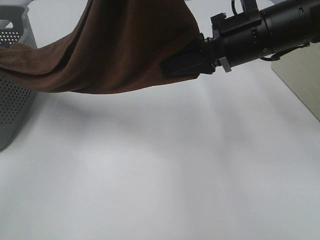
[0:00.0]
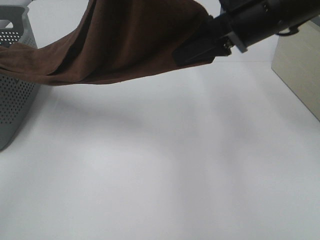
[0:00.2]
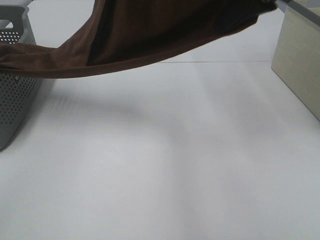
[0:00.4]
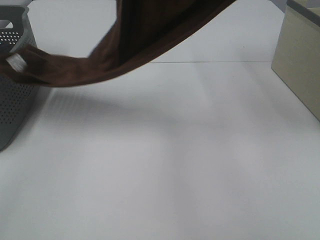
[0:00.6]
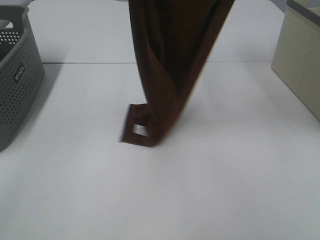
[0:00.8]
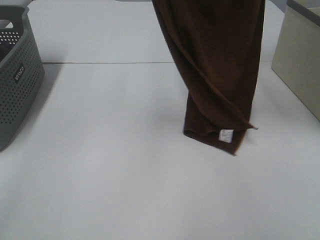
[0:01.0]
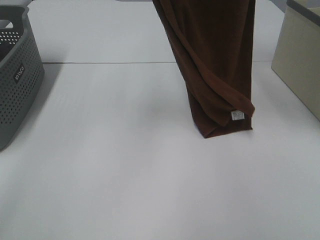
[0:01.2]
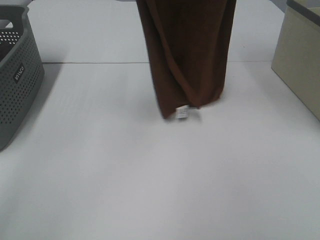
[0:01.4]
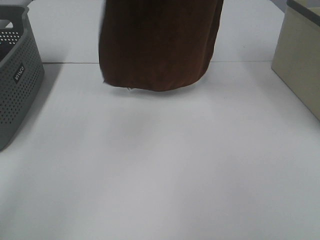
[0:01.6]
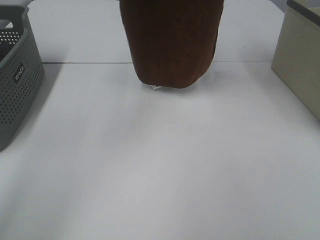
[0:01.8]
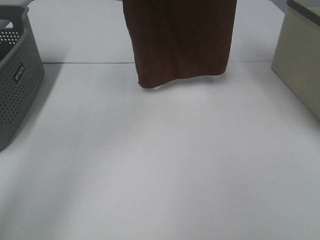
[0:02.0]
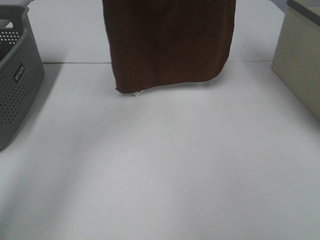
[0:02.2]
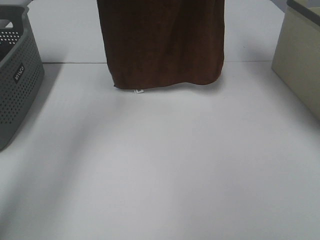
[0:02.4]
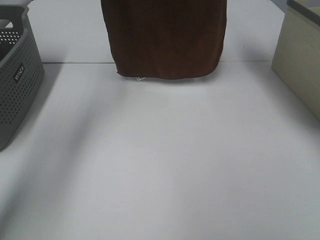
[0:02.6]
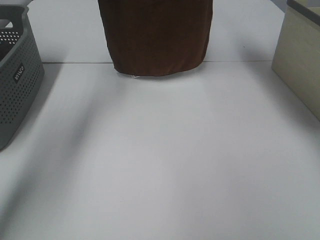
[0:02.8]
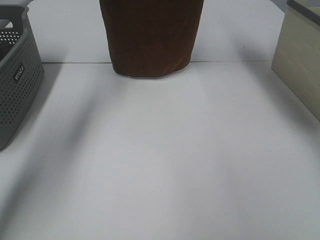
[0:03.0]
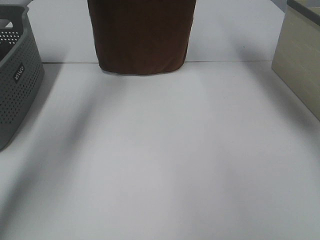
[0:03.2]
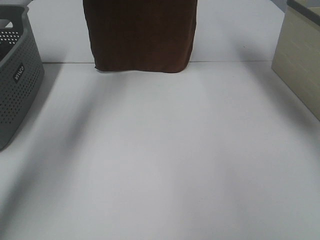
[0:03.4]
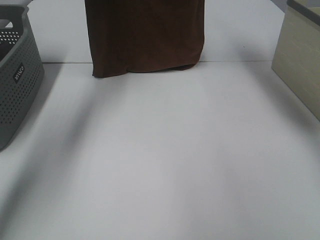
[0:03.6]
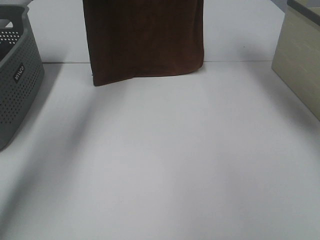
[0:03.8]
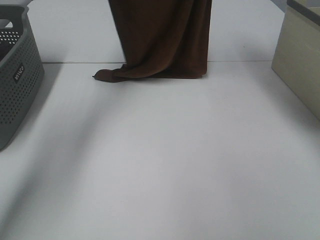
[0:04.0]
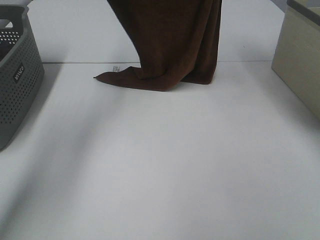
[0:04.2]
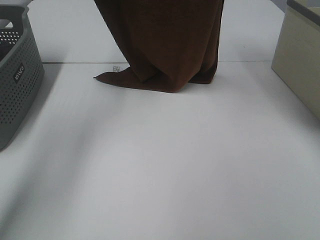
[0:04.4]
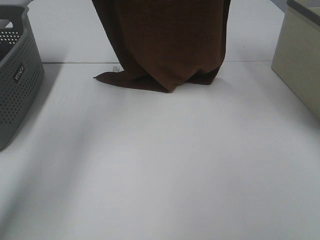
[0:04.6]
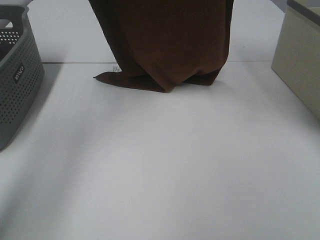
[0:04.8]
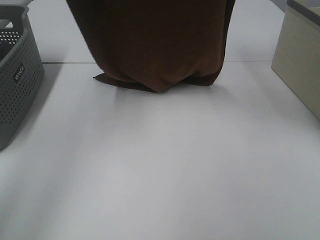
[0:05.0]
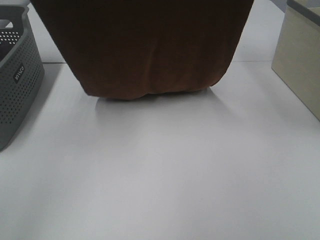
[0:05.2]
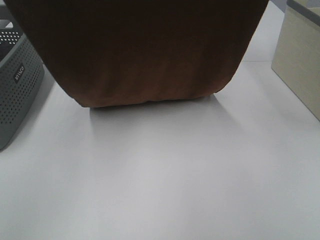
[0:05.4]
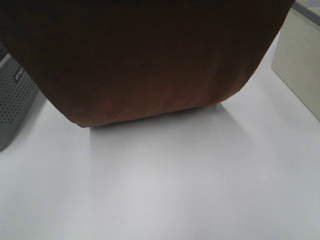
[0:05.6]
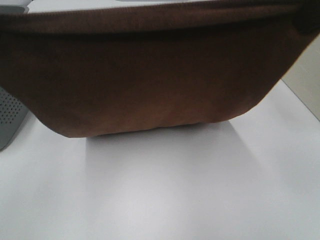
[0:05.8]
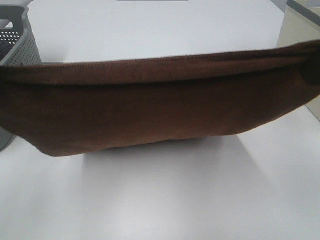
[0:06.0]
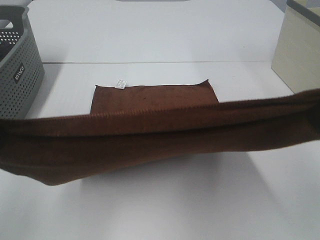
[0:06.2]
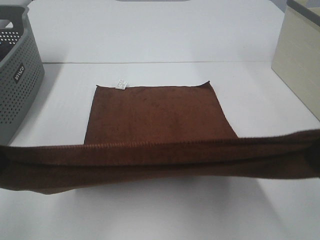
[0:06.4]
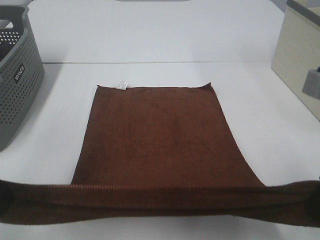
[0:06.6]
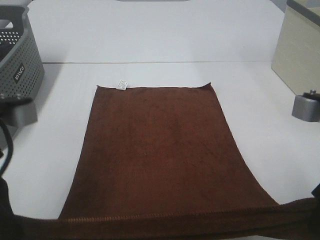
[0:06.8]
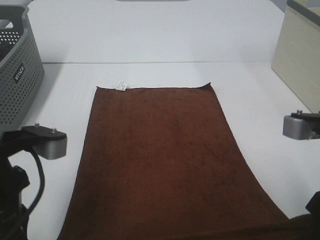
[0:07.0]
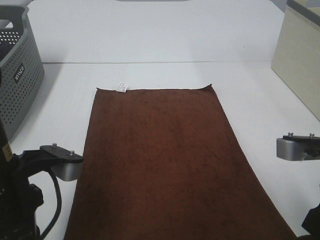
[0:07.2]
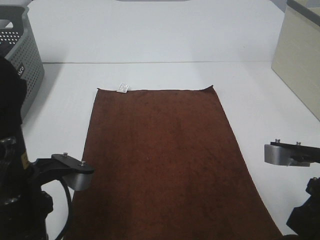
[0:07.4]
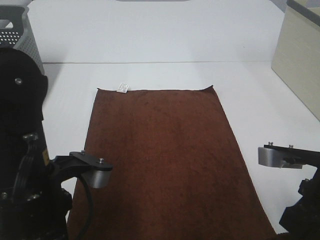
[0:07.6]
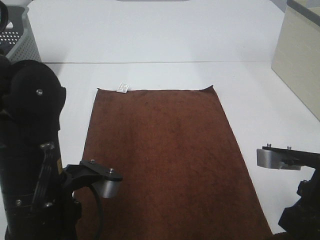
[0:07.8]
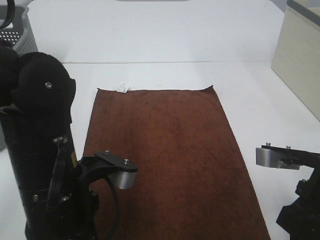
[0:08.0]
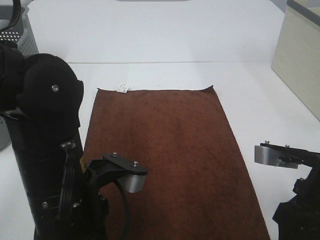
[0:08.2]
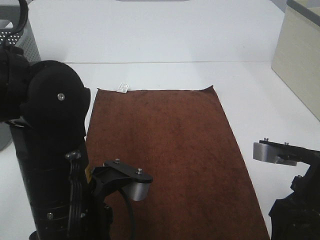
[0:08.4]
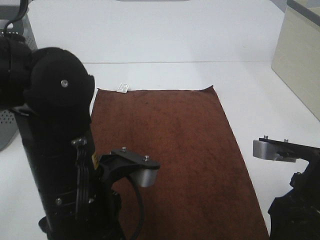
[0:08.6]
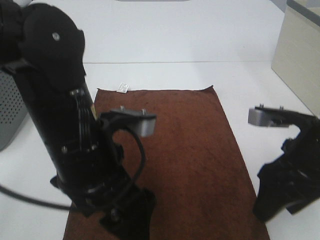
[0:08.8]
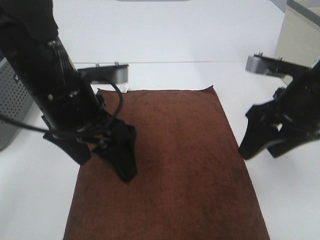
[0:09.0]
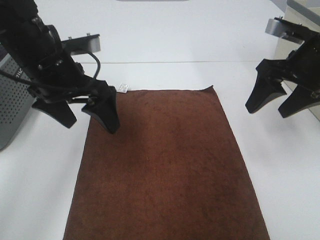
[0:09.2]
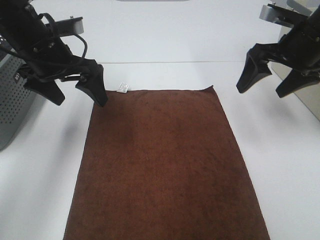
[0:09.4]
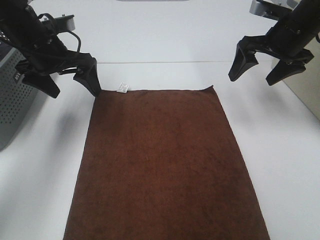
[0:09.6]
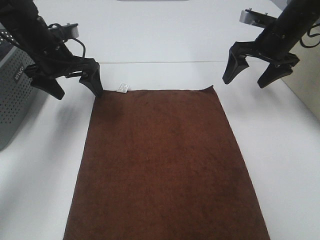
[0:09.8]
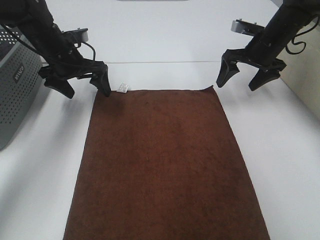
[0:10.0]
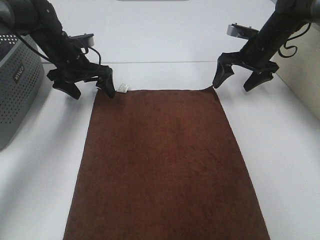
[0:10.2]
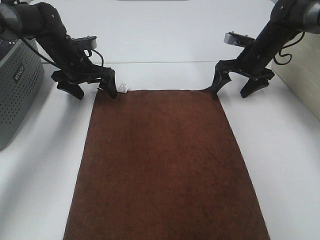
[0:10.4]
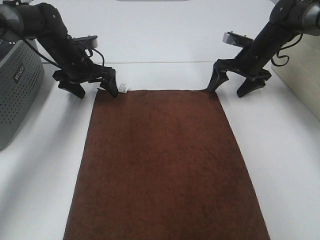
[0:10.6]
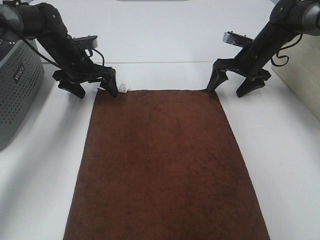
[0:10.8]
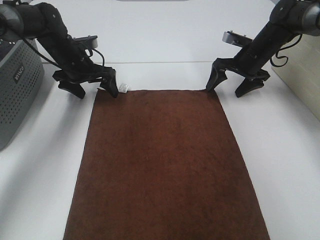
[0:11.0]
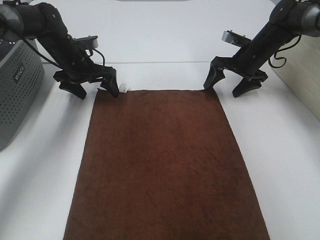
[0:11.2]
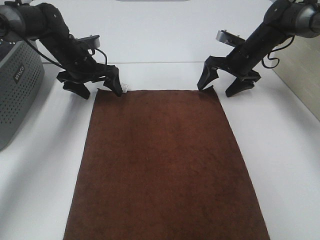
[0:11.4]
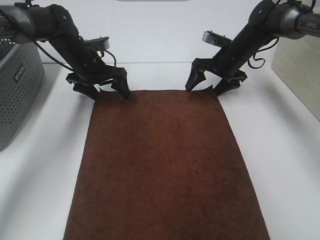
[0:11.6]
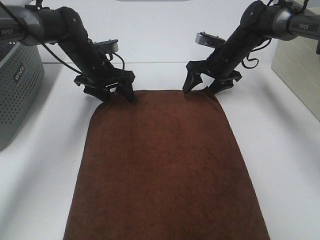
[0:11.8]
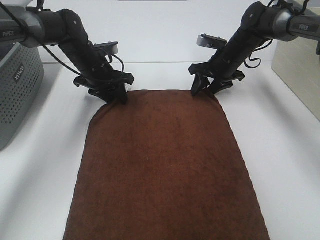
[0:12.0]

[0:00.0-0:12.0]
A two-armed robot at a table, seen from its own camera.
Task of the whole recording: Remove the towel and place it.
Step, 0:00.0 to 0:04.2: Left hand: spread the brown towel flat on the table.
Step, 0:00.0 to 0:04.2: Right hand: spread the brown towel flat on the table.
Step, 0:04.4 to 0:10.6: Left hand:adjust the brown towel.
Step, 0:04.4 to 0:10.6: Right hand:adjust the brown towel.
0:00.0 to 0:01.6: The left gripper shifts roughly 15 cm forward and to the left, while the right gripper travels upward by approximately 30 cm.
0:01.6 to 0:03.0: The right gripper heads forward and downward, covering about 15 cm. Meanwhile the left gripper moves forward, downward and to the left, about 15 cm.
0:03.0 to 0:04.4: The right gripper is displaced backward by roughly 5 cm, while the left gripper moves some 5 cm.
0:04.4 to 0:06.0: Both grippers move backward, about 25 cm.
0:06.0 to 0:07.6: The right gripper moves downward, about 20 cm. Meanwhile the left gripper heads downward and to the right, covering some 20 cm.
0:07.6 to 0:09.0: The two grippers go some 10 cm forward. The right gripper opens up. The left gripper opens up.
0:09.0 to 0:10.4: Both grippers travel together forward and downward, roughly 25 cm.
0:10.4 to 0:12.0: The left gripper closes up, while the right gripper heads to the left, covering about 5 cm, and closes up.

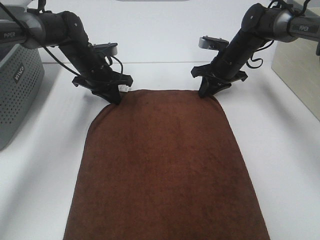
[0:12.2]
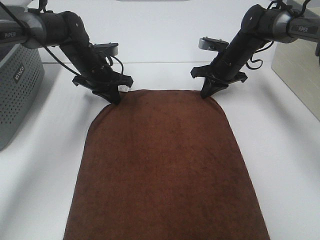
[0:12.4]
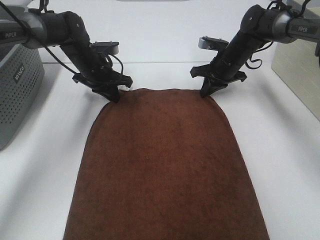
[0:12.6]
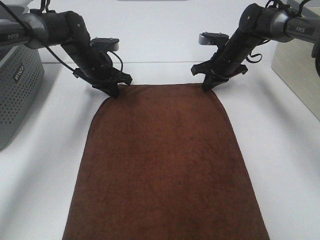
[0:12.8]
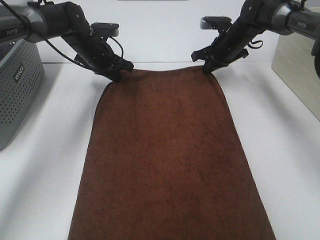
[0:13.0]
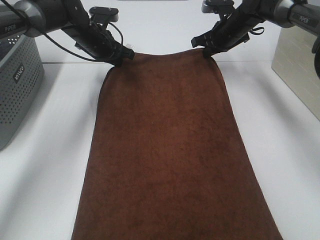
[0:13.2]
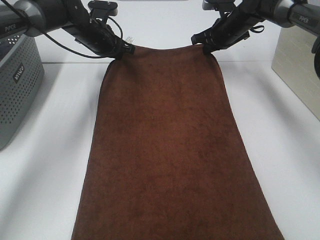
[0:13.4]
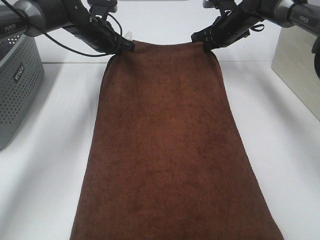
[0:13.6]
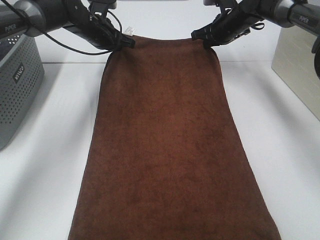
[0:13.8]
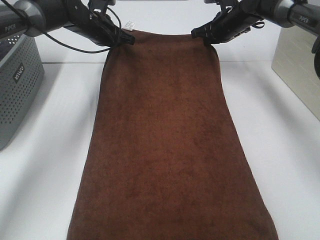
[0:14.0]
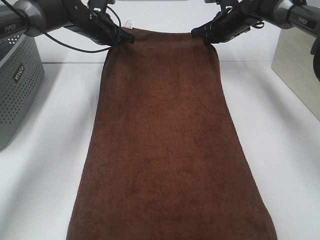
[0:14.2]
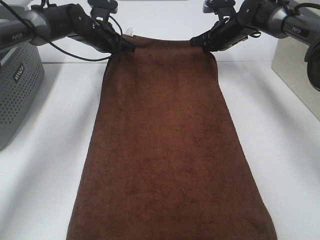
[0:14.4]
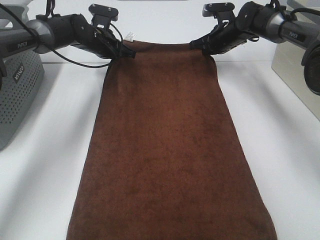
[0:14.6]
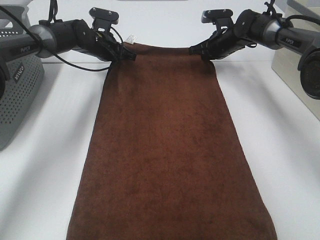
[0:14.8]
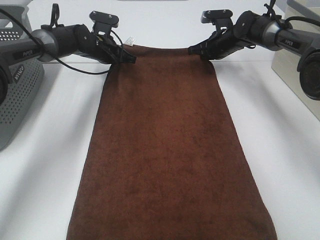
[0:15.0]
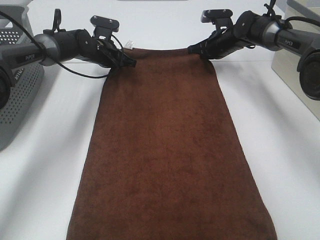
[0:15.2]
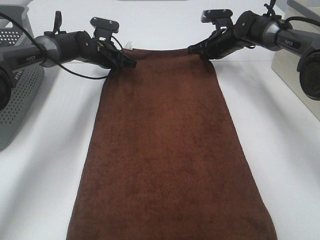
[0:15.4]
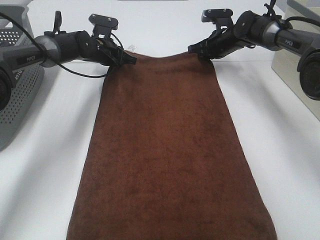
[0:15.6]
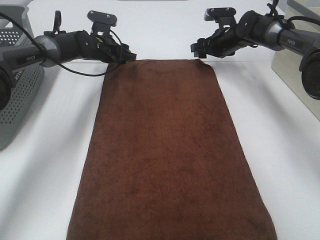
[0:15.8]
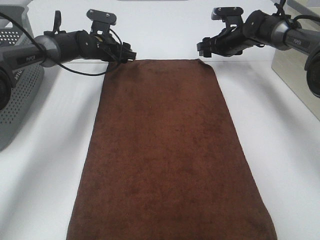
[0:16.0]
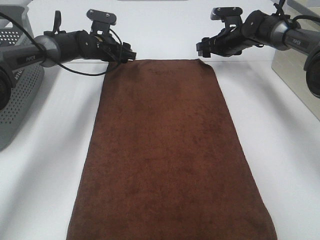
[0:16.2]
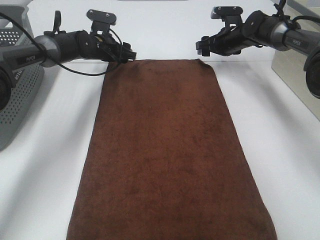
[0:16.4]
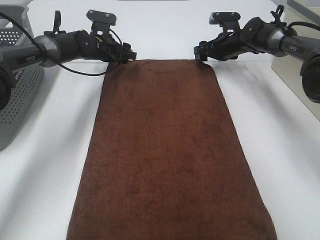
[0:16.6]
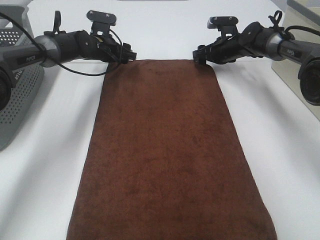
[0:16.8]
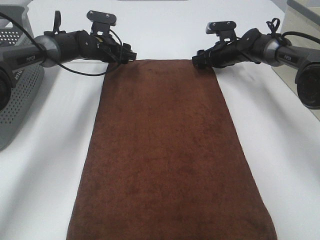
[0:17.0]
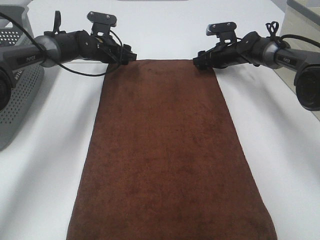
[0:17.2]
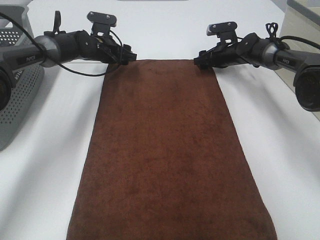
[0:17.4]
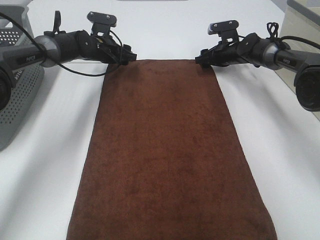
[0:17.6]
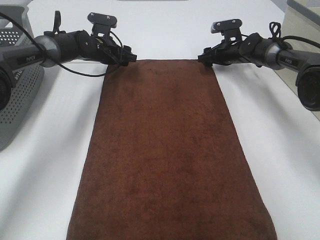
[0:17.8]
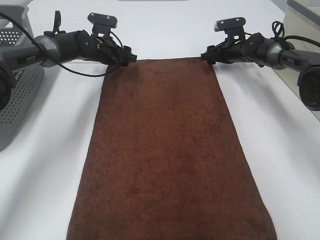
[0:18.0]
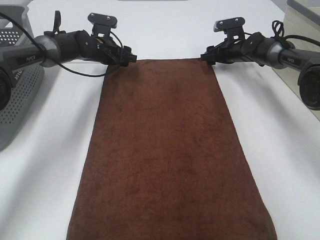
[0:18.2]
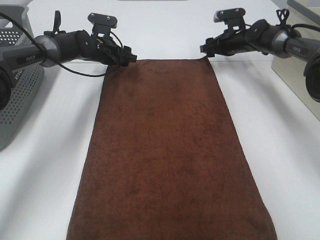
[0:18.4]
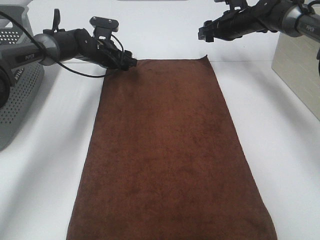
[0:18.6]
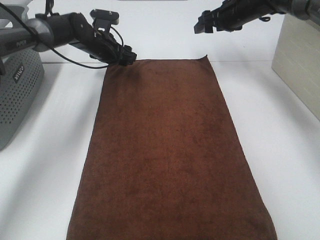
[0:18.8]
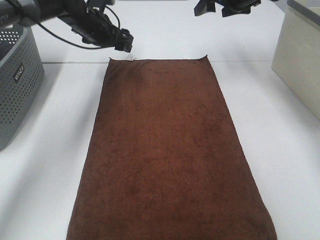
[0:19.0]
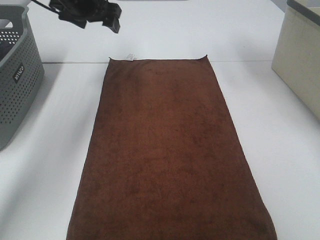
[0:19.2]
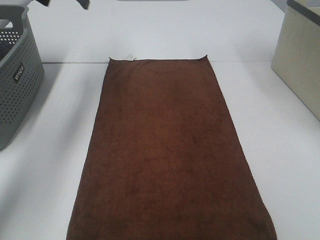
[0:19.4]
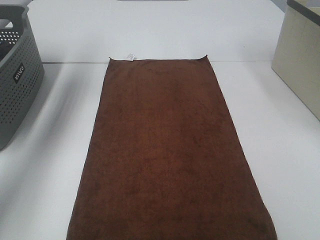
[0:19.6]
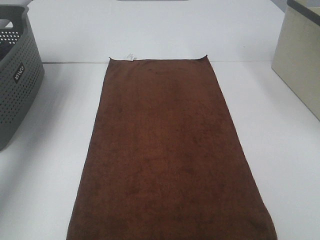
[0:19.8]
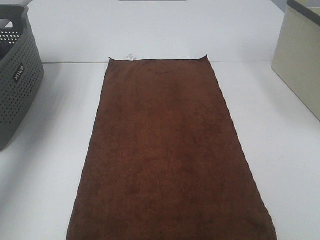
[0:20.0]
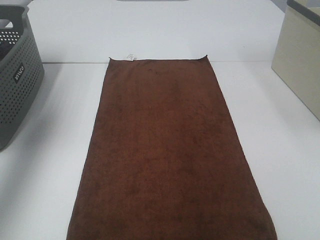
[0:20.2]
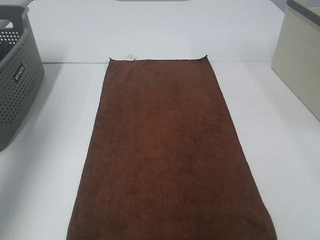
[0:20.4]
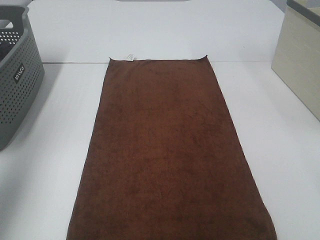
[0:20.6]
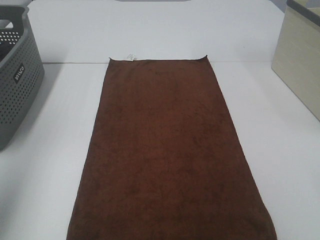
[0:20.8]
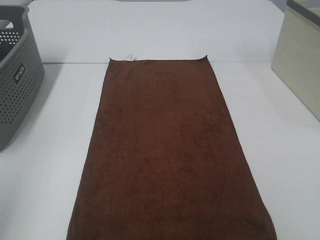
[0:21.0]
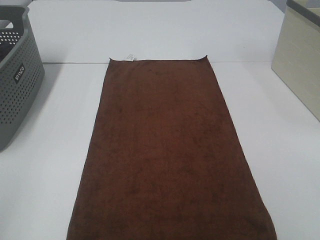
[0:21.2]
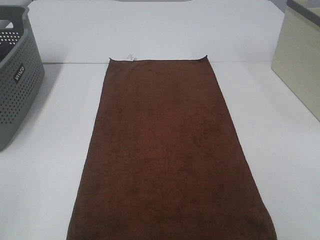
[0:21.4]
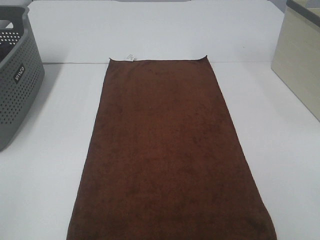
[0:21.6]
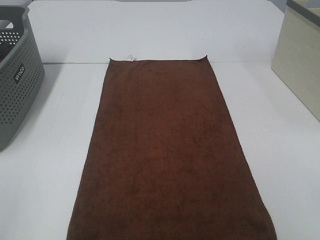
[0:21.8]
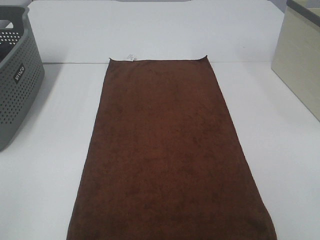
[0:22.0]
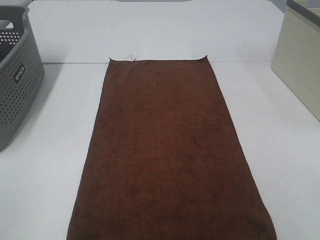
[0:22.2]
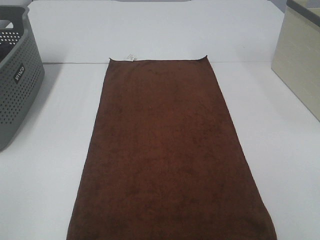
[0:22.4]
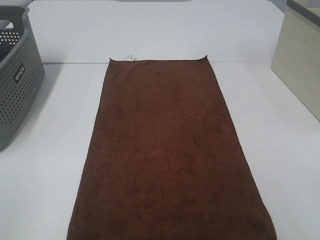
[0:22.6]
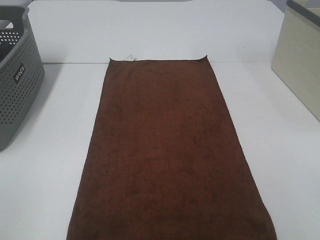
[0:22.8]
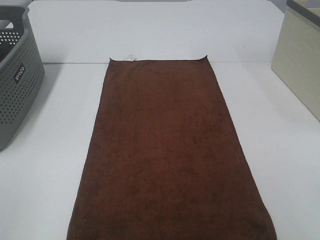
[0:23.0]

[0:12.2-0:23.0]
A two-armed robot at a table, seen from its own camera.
Task of the whole recording: Remove the towel and place it.
0:12.2 to 0:13.8: The two grippers go some 10 cm upward and forward.
0:13.8 to 0:15.2: The grippers both shift downward by about 5 cm.
0:15.2 to 0:16.8: The right gripper opens up, while the left gripper opens.
0:16.8 to 0:18.4: The grippers make only small movements.
0:18.4 to 0:20.0: The right gripper goes approximately 40 cm upward and backward. Meanwhile the left gripper travels upward, to the left and backward by approximately 40 cm.
0:20.0 to 0:21.4: The left gripper travels backward by roughly 40 cm.
